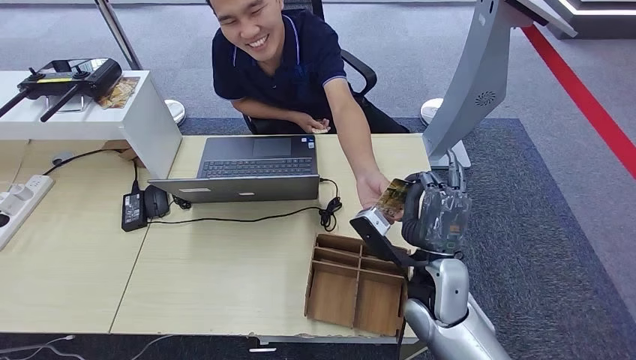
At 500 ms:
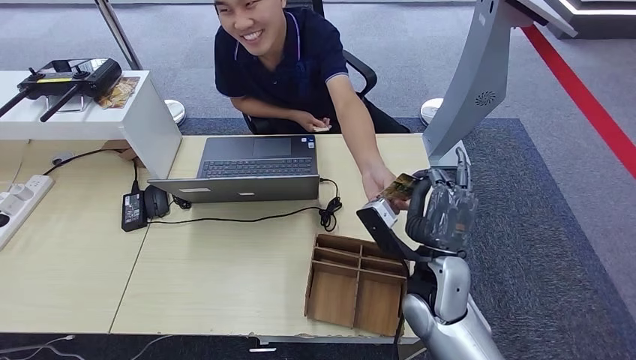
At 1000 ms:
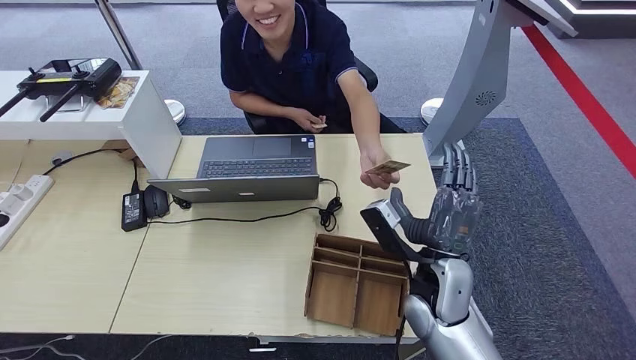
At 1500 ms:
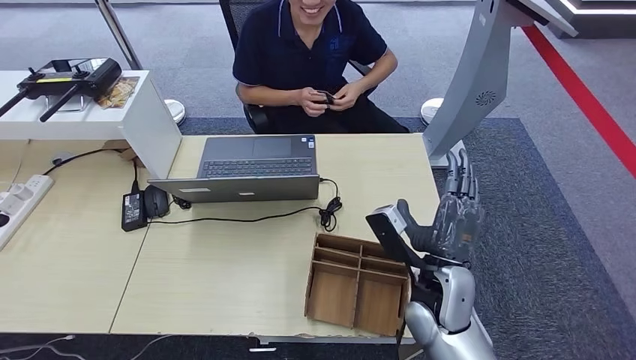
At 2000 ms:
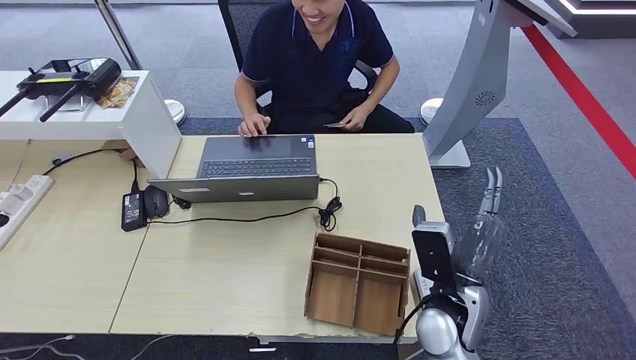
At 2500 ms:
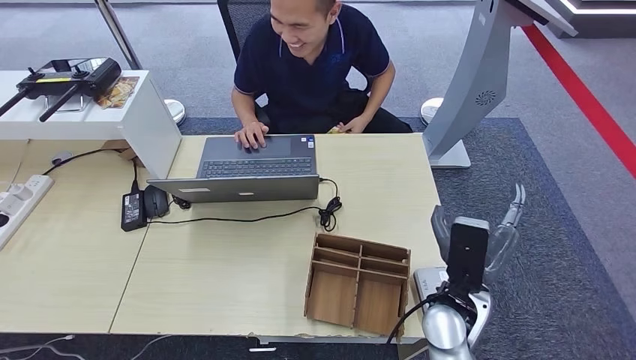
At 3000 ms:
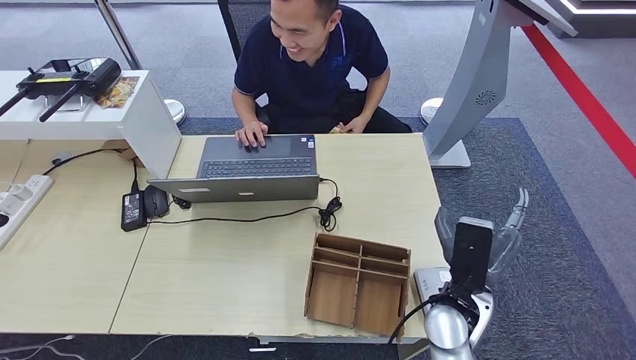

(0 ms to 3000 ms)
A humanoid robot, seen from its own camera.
Step, 500 ms - 3000 ms: Hand the room key to the person.
0 ms - 1500 ms: The hands make only small movements.
